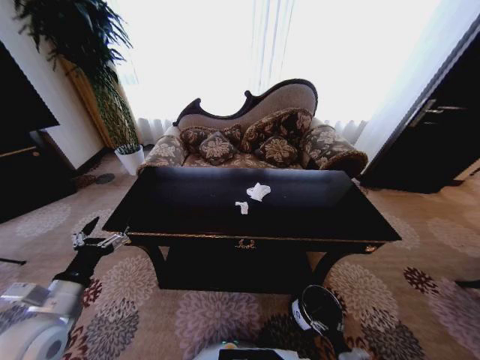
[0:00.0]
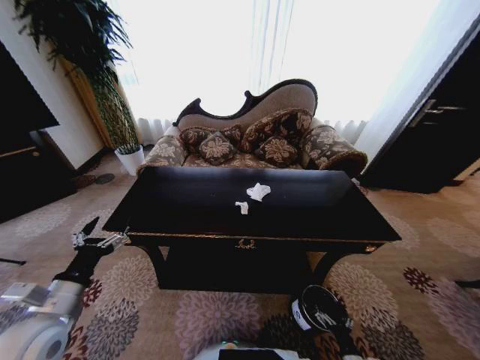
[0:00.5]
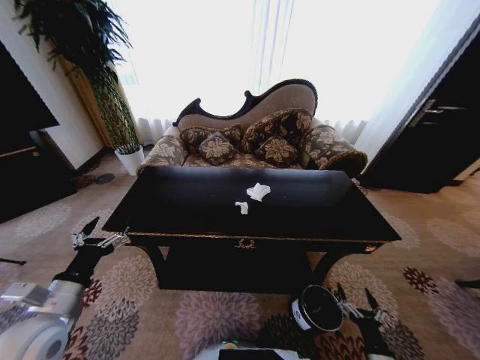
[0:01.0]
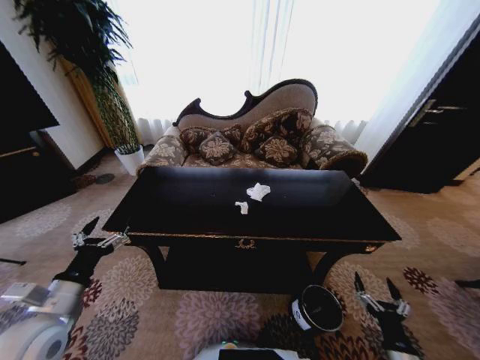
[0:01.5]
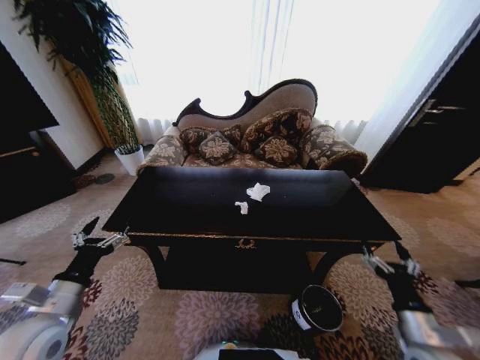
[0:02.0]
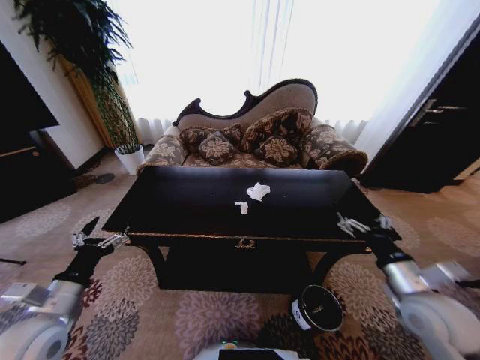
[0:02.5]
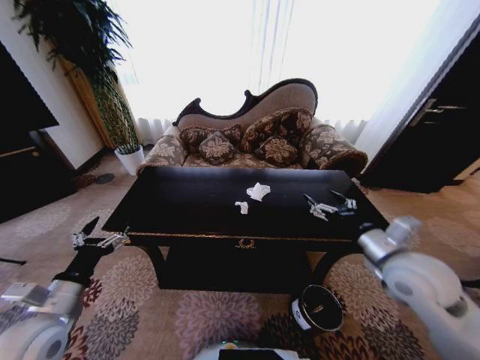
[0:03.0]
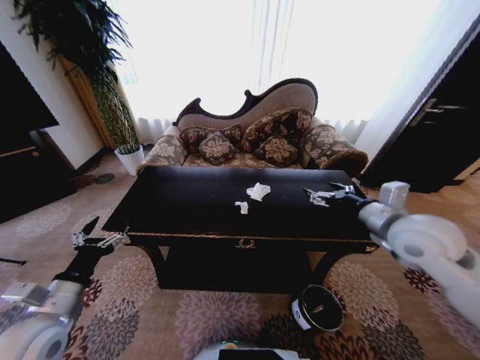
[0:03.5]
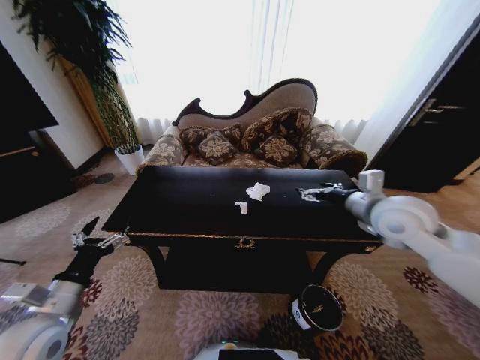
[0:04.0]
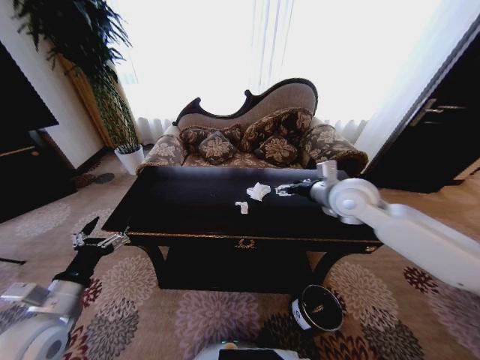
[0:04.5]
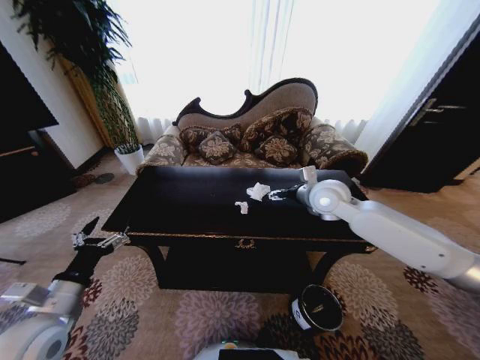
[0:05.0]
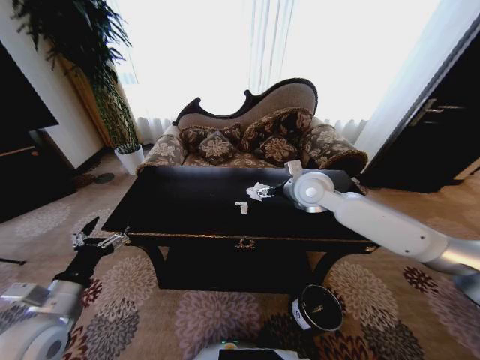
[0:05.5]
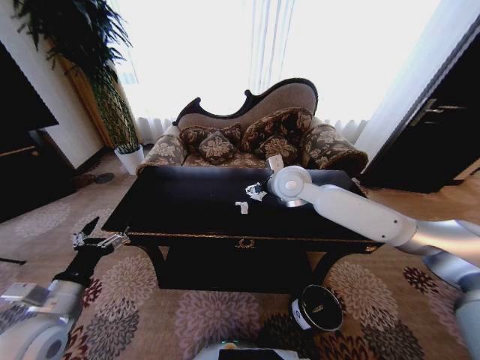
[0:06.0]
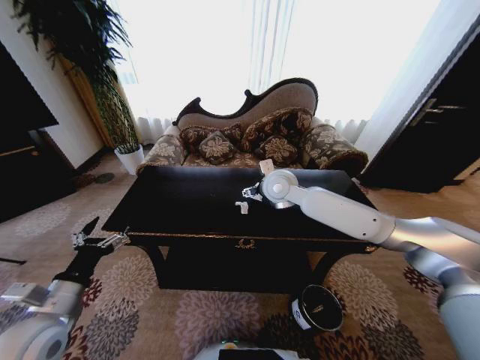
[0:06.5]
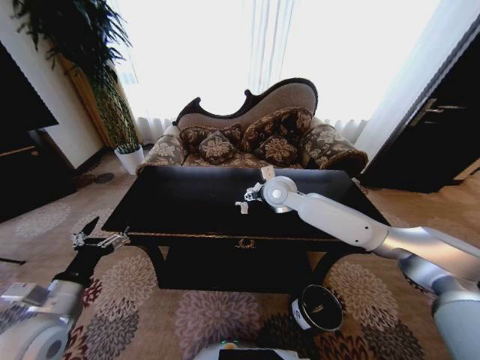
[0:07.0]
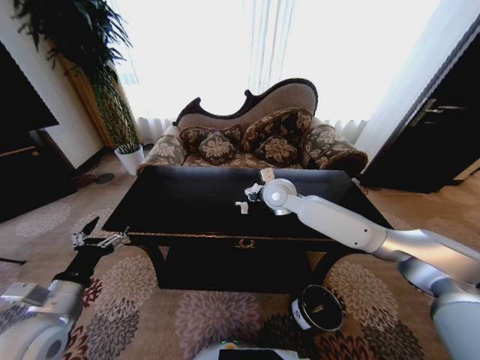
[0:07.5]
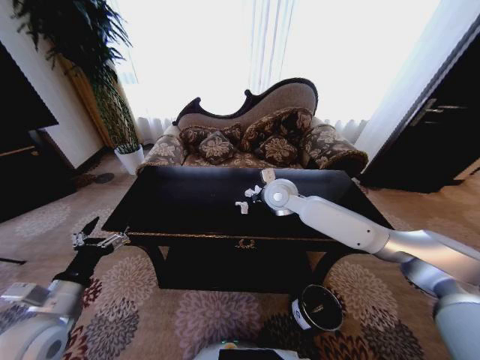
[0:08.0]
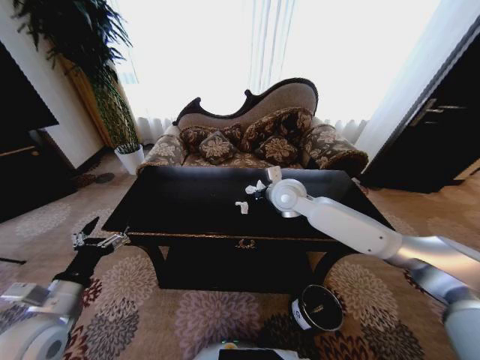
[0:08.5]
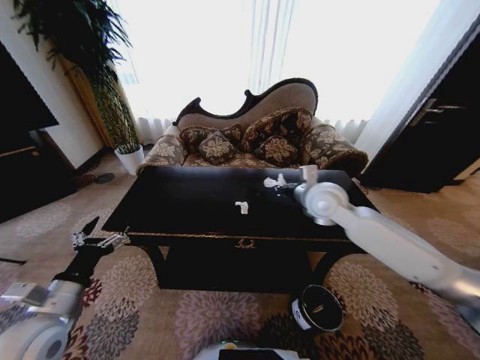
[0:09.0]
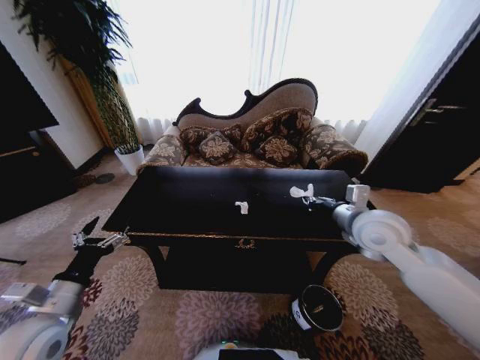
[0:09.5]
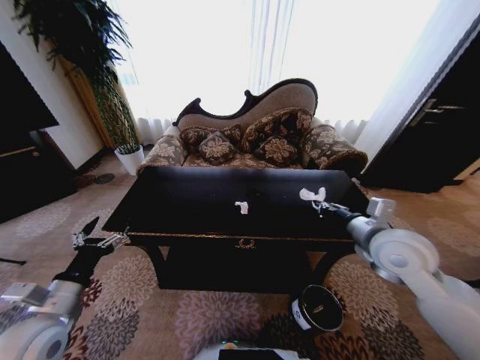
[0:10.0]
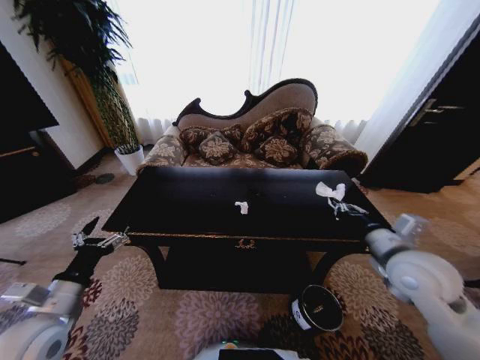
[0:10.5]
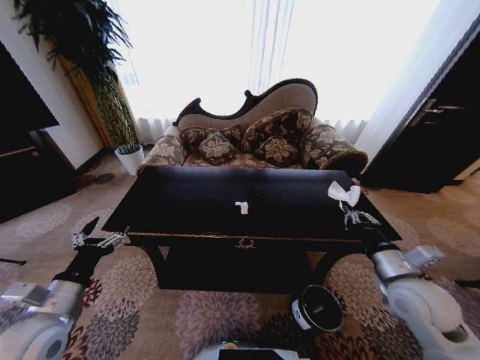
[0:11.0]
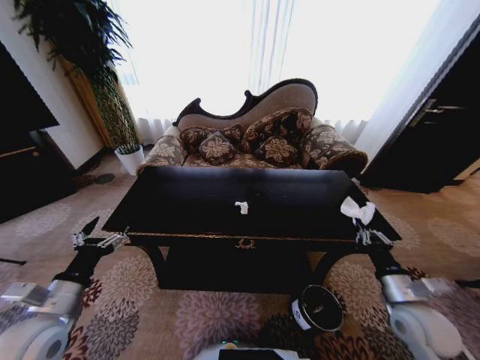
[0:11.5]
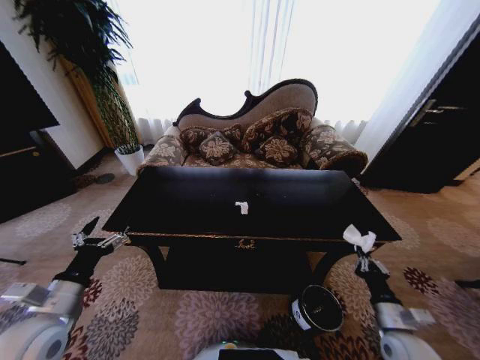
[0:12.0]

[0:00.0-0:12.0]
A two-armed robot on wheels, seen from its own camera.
Task of the whole recording: Move to the front of the table and place the trash on the table into the trash bin.
0:00.0 to 0:02.0: The right gripper moves upward, about 35 cm.
0:02.0 to 0:04.0: The right gripper travels upward and forward by roughly 30 cm.
0:04.0 to 0:06.0: The right gripper moves to the left and forward, roughly 20 cm.
0:06.0 to 0:08.0: The right gripper shifts some 5 cm downward, and closes its fingers.
0:08.0 to 0:10.0: The right gripper is displaced to the right and backward by about 25 cm.
0:10.0 to 0:12.0: The right gripper moves downward and backward, approximately 30 cm.

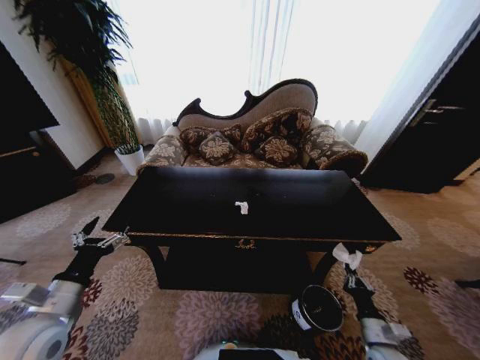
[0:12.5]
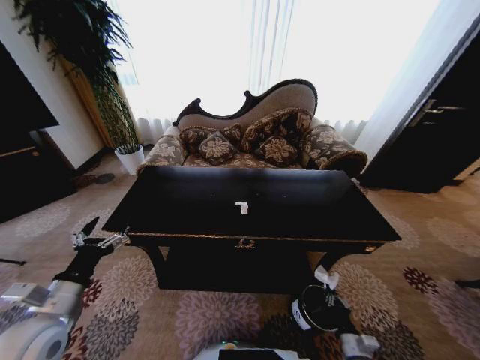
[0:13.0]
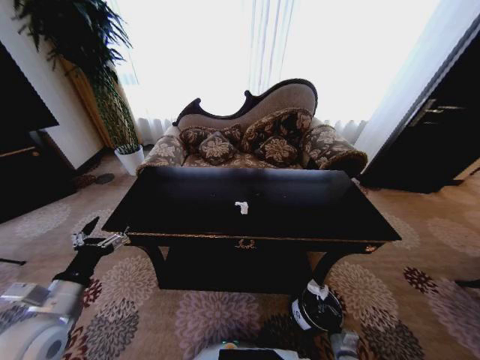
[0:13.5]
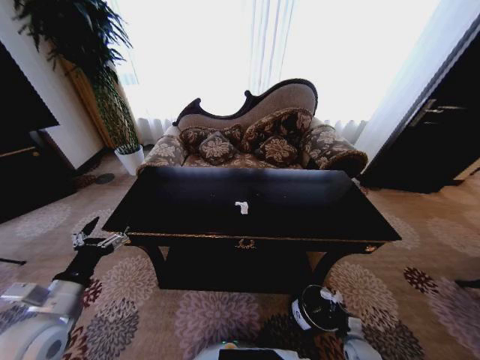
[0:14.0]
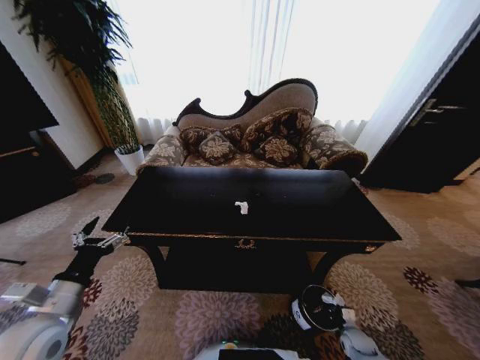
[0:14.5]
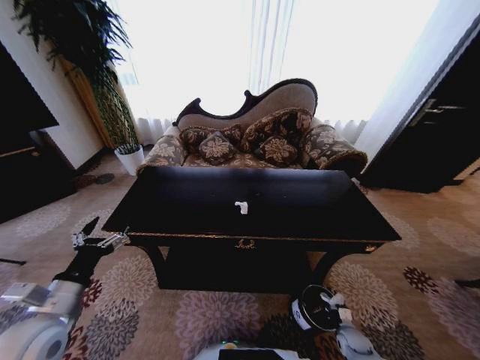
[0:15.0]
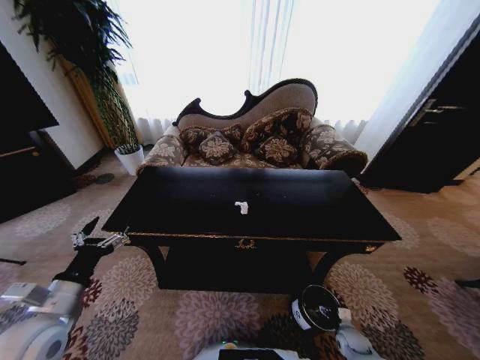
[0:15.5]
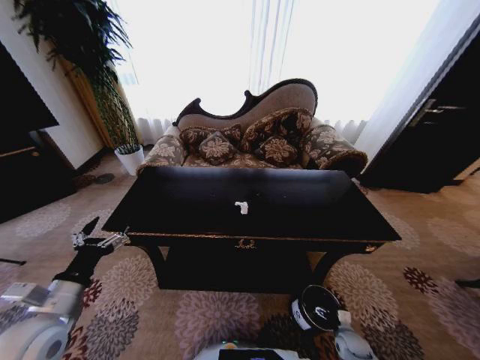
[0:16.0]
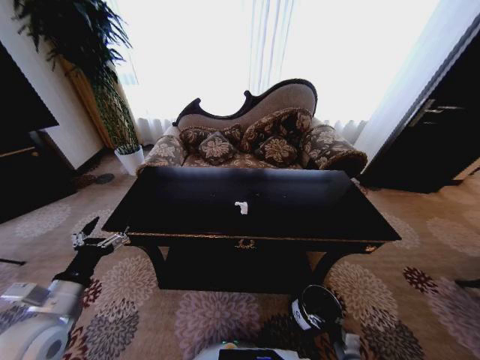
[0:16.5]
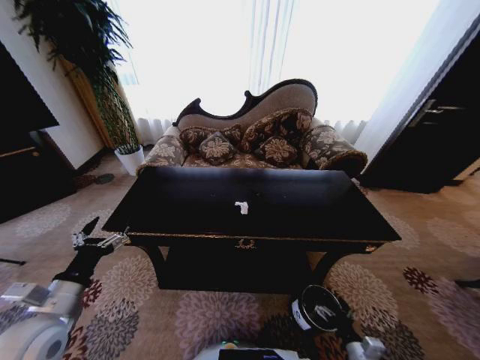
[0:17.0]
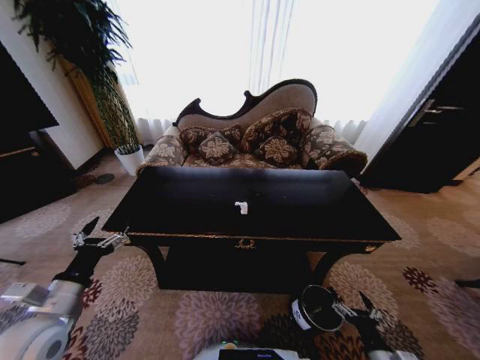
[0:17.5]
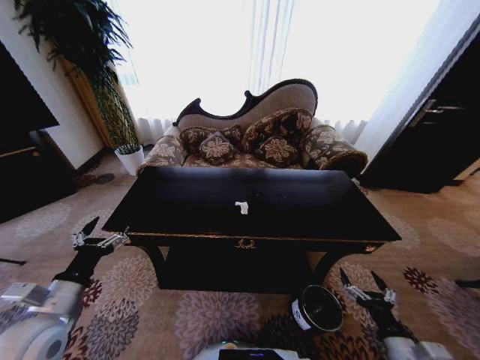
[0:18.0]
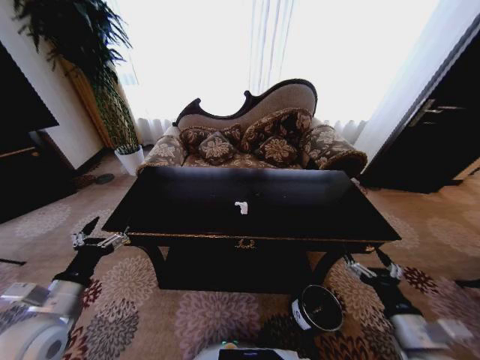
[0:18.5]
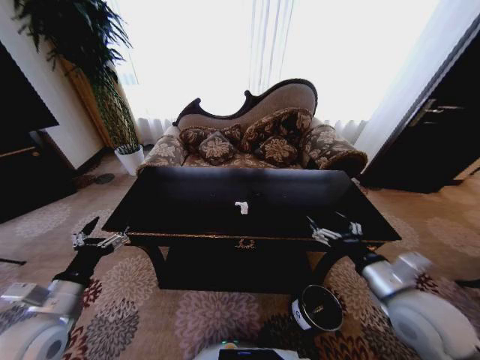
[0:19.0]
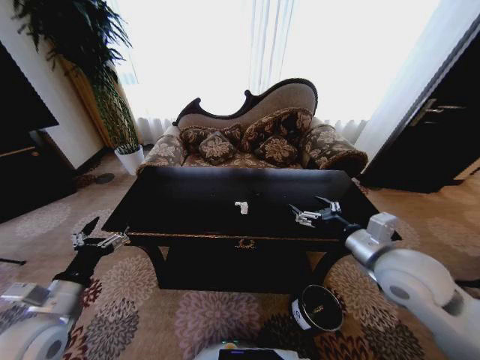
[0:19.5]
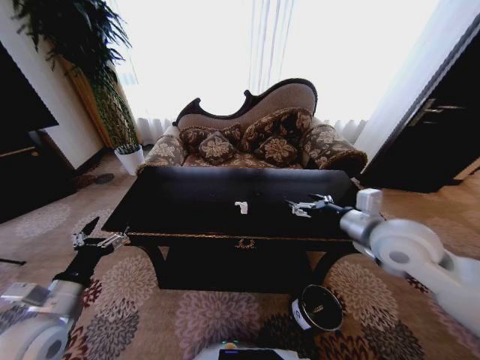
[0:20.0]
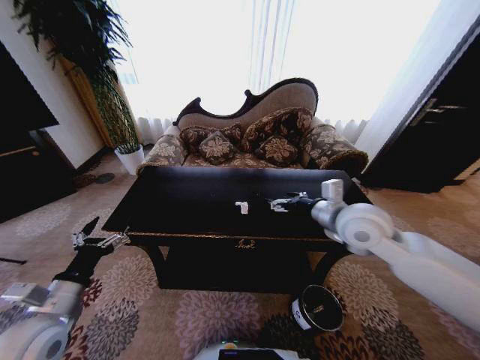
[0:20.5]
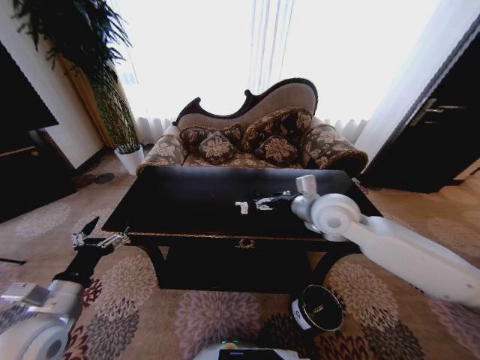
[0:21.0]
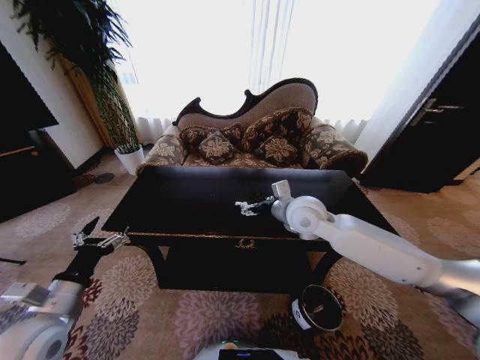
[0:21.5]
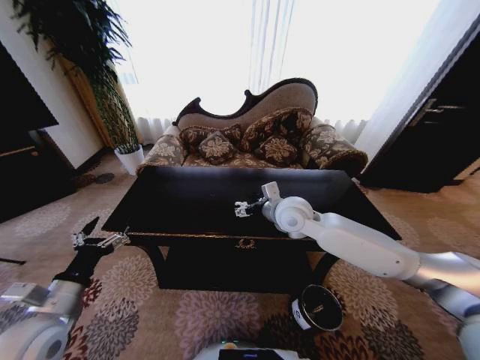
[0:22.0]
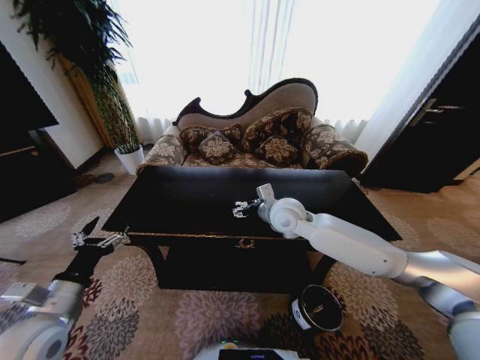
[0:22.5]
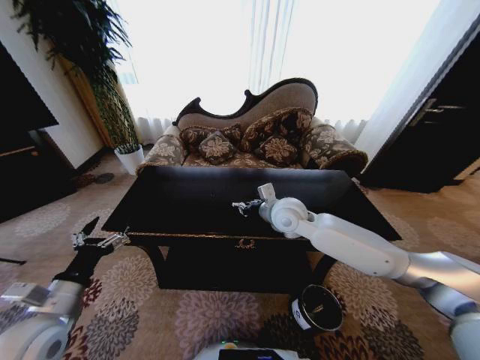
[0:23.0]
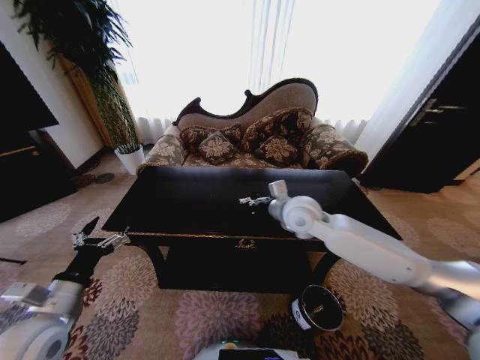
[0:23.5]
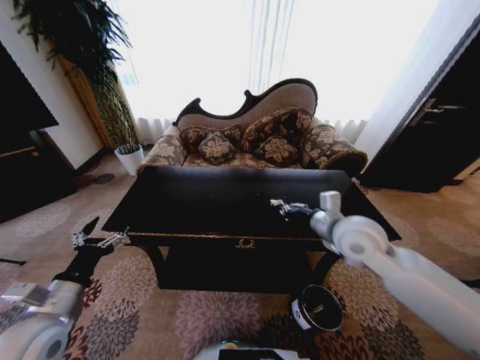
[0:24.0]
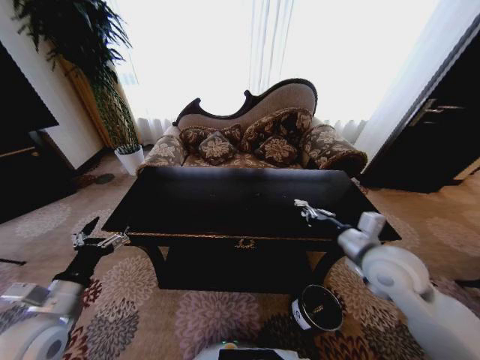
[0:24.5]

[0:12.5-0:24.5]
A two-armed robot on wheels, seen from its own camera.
Task of the whole recording: Move to the front of the table and place the trash on the table into the trash bin.
0:12.5 to 0:14.5: The right gripper travels downward by roughly 15 cm.
0:14.5 to 0:16.5: The right gripper goes some 5 cm backward, and opens up.
0:16.5 to 0:18.5: The right gripper is displaced upward by roughly 30 cm.
0:18.5 to 0:20.5: The right gripper heads forward, upward and to the left, covering about 30 cm.
0:20.5 to 0:22.5: The right gripper travels to the left, forward and downward by roughly 15 cm.
0:22.5 to 0:24.5: The right gripper travels to the right and backward by about 25 cm, and closes up.

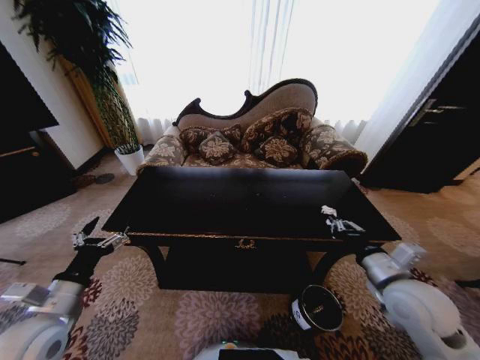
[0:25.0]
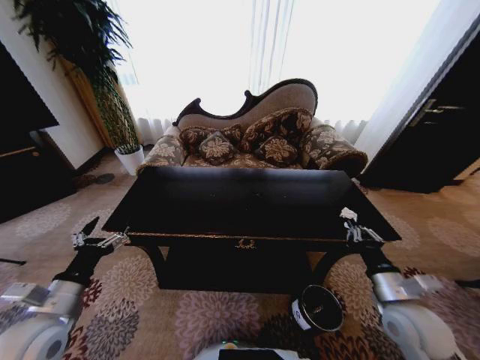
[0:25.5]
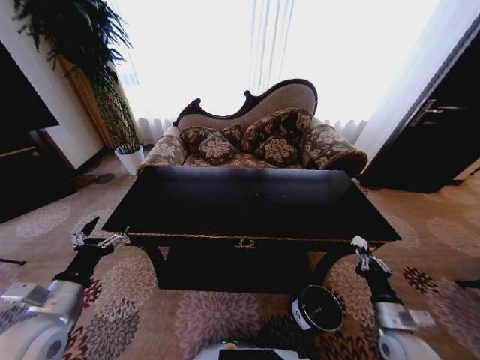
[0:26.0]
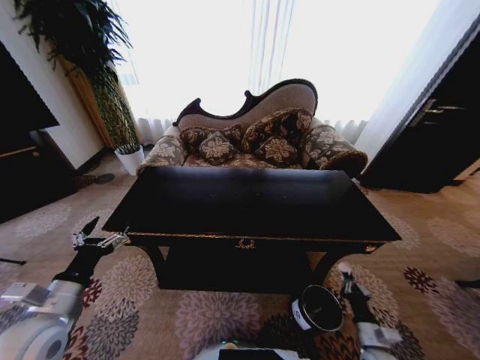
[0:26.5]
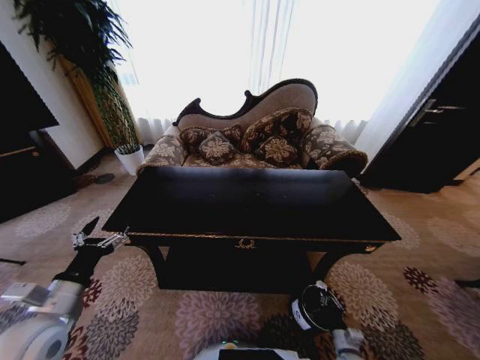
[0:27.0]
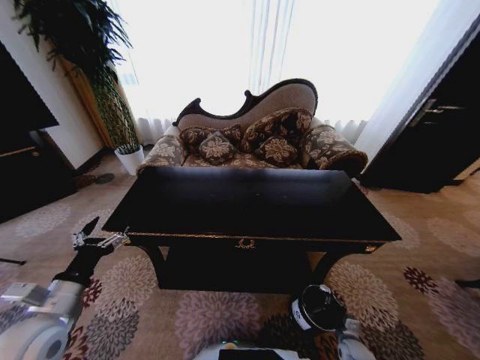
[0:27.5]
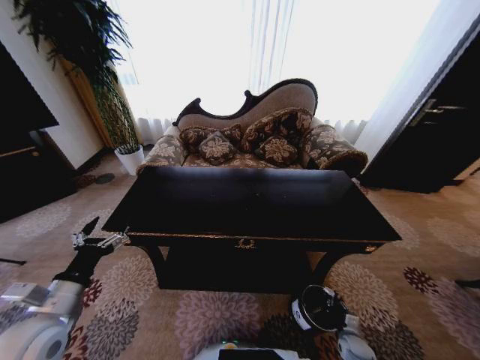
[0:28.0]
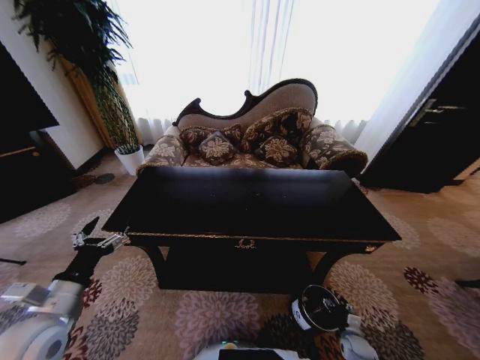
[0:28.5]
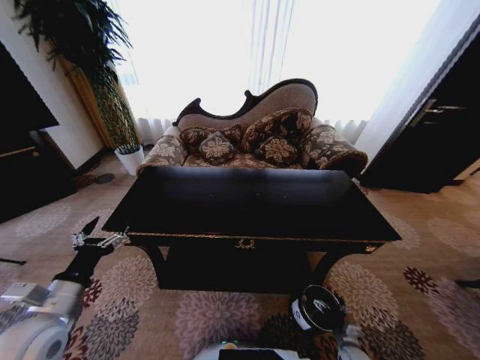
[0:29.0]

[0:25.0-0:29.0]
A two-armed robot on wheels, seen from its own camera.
Task of the whole recording: Move to the front of the table and place the trash on the table into the trash bin.
0:25.0 to 0:27.0: The right gripper heads downward, covering some 35 cm.
